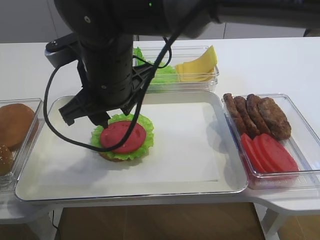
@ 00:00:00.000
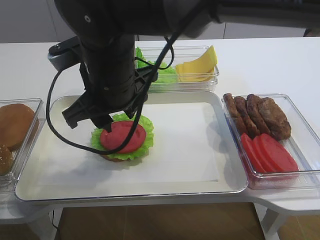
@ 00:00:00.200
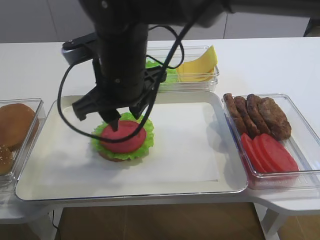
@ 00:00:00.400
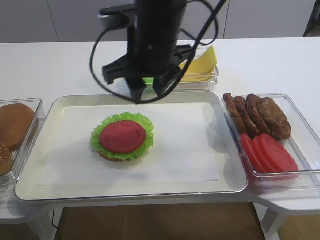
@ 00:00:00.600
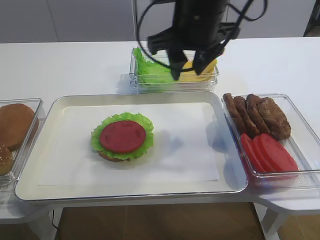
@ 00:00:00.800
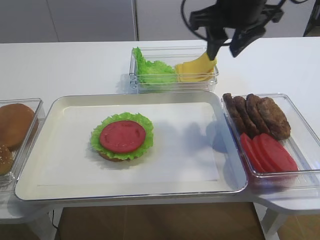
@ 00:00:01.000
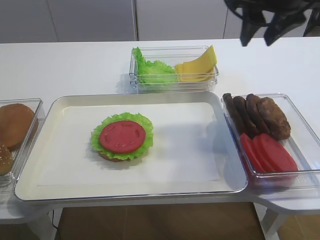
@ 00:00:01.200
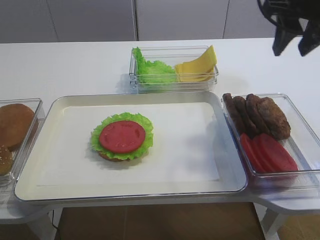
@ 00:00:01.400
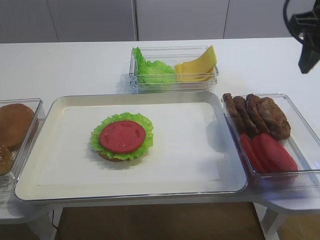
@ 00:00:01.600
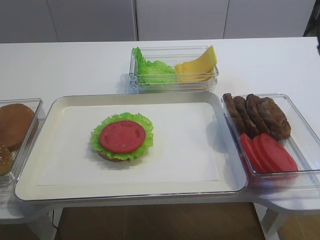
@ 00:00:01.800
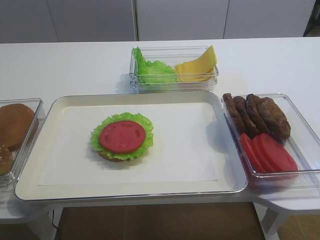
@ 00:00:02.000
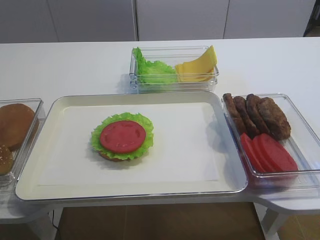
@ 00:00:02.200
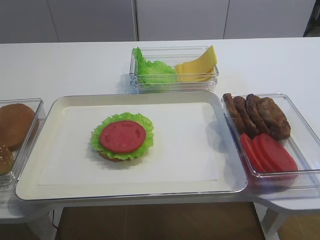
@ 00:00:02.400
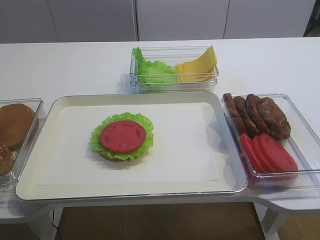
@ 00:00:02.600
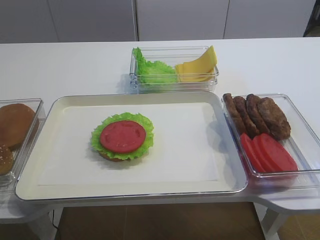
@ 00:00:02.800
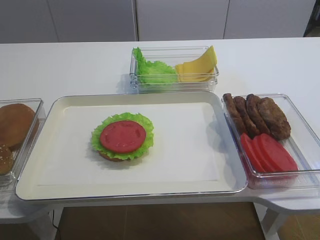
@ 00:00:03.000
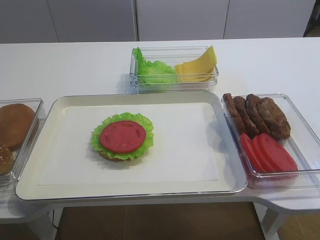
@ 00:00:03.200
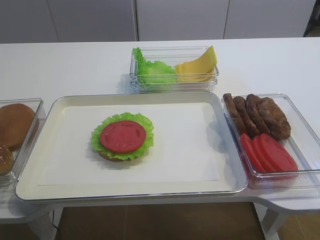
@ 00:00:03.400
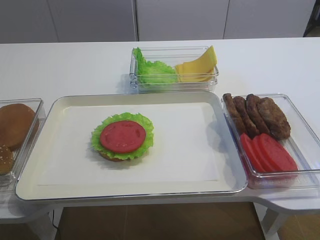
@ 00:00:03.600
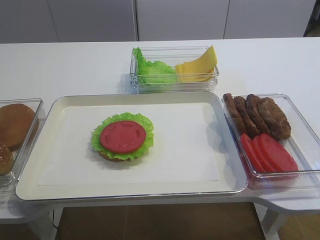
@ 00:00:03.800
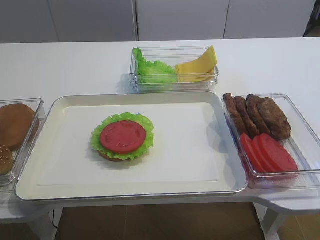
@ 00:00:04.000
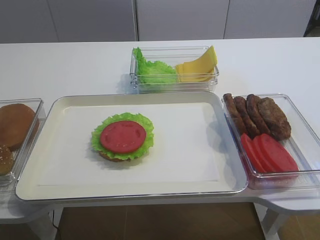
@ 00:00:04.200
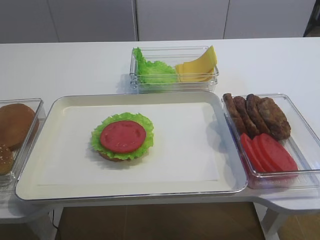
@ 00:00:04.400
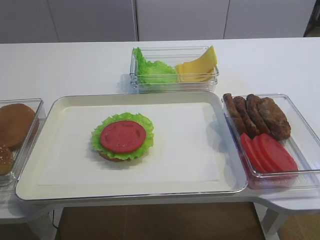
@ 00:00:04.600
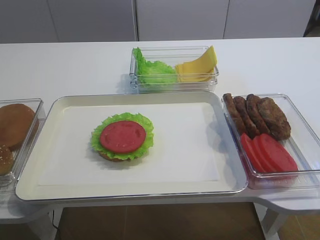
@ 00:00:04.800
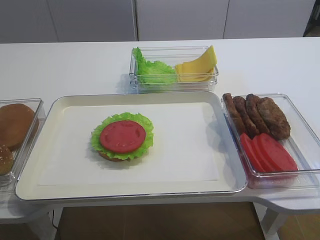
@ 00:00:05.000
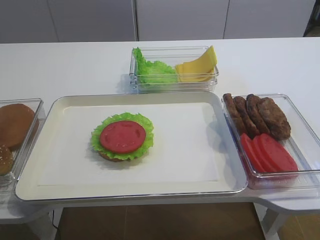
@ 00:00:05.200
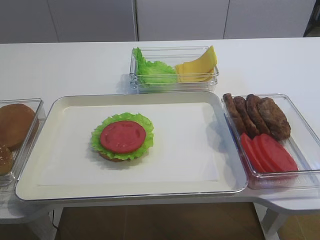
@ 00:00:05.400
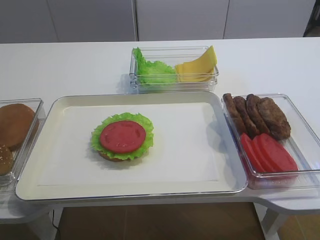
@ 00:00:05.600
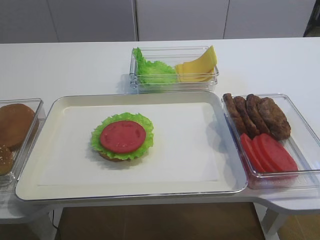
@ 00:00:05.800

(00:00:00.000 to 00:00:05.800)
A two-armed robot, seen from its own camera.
00:00:00.000 - 00:00:01.400: The right gripper shifts some 30 cm to the right.
00:00:01.400 - 00:00:02.800: The right gripper goes some 35 cm backward.
